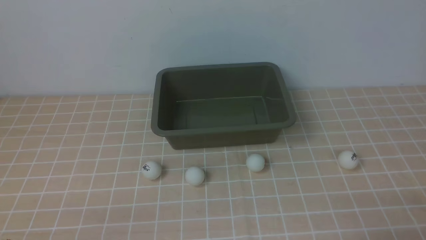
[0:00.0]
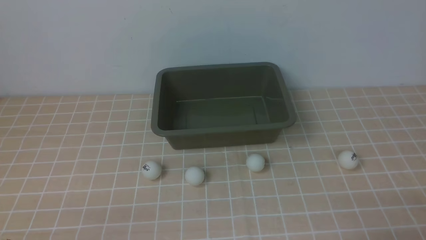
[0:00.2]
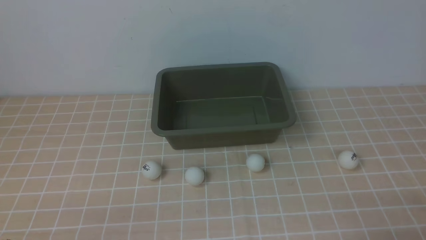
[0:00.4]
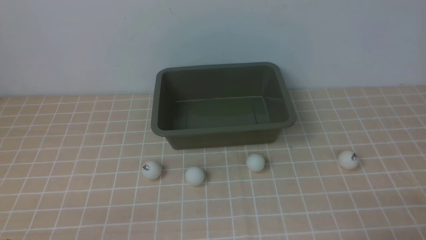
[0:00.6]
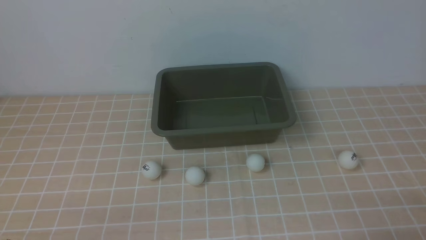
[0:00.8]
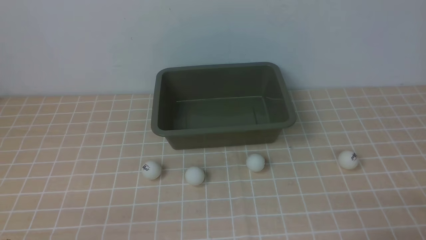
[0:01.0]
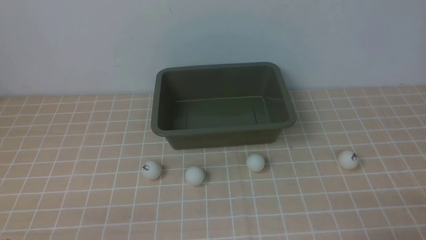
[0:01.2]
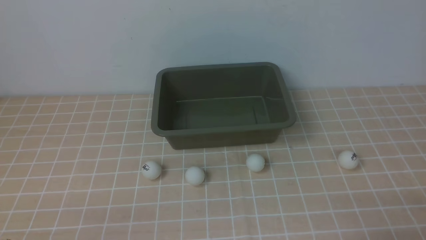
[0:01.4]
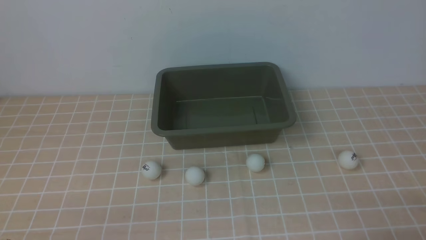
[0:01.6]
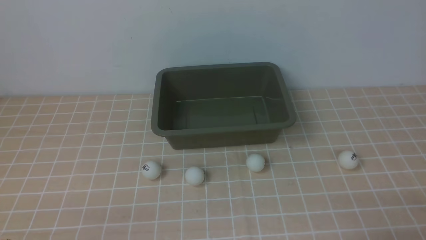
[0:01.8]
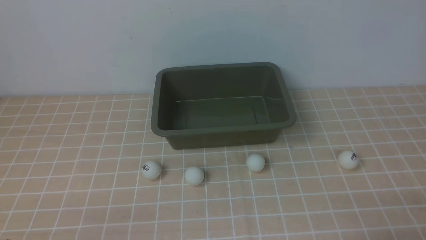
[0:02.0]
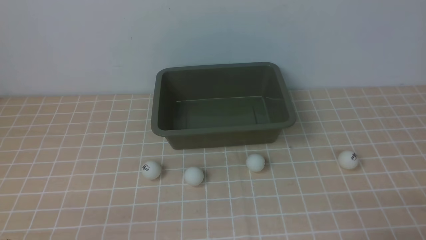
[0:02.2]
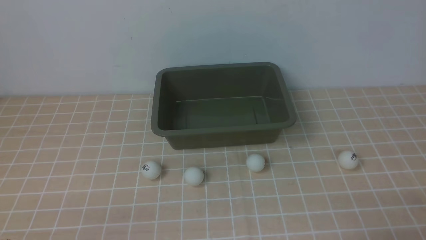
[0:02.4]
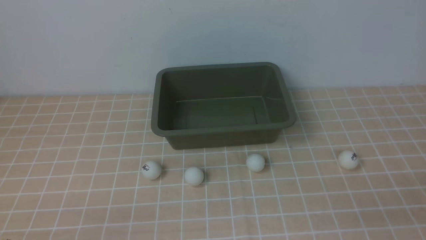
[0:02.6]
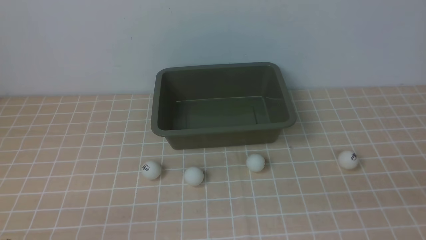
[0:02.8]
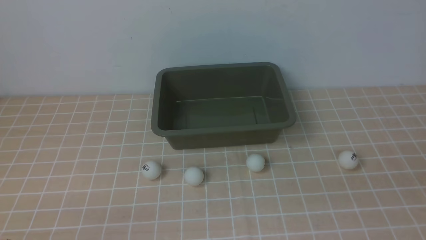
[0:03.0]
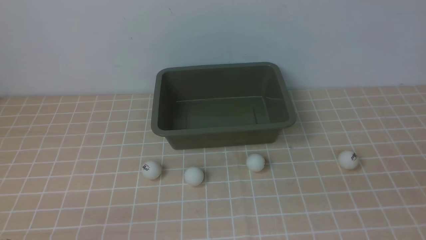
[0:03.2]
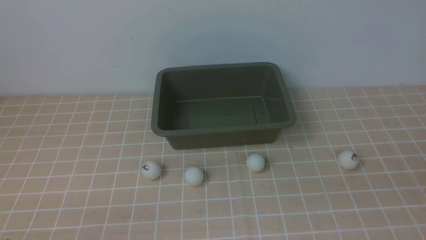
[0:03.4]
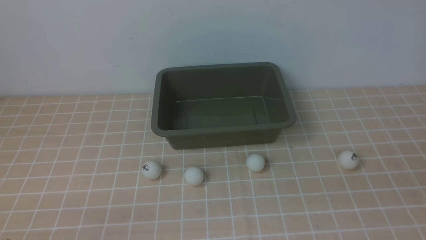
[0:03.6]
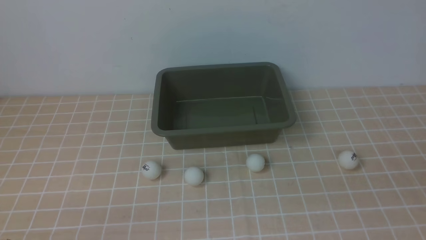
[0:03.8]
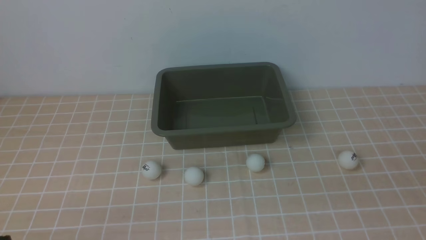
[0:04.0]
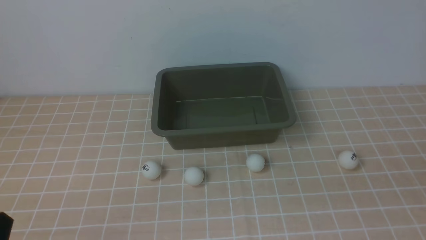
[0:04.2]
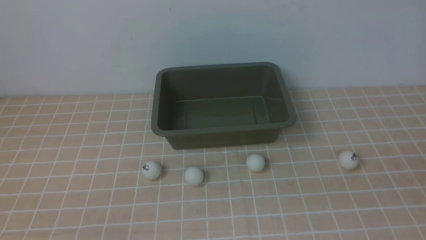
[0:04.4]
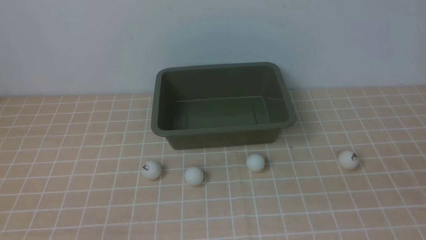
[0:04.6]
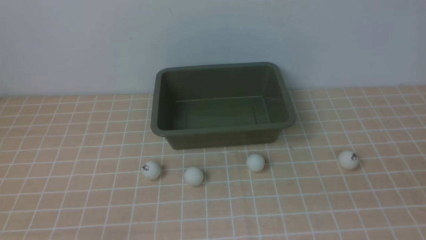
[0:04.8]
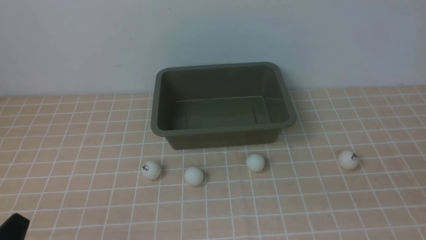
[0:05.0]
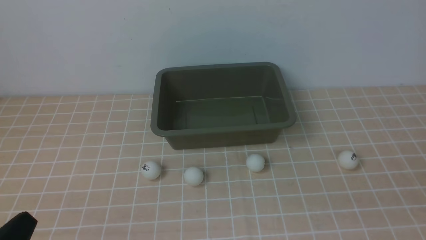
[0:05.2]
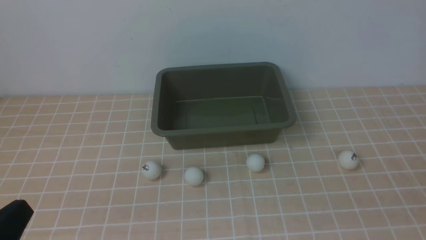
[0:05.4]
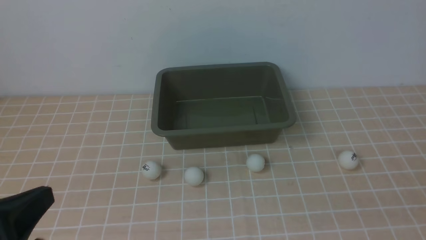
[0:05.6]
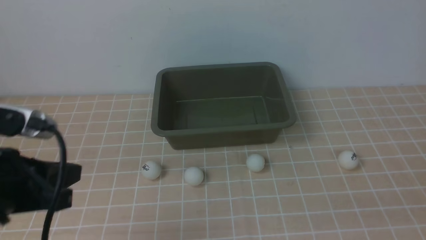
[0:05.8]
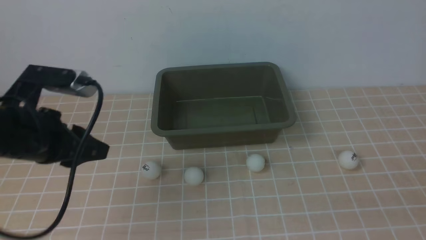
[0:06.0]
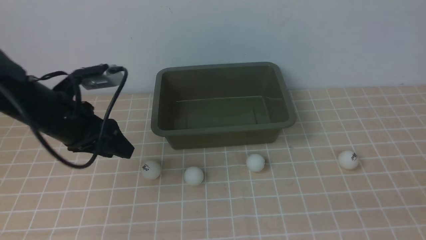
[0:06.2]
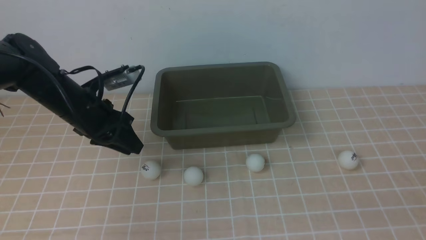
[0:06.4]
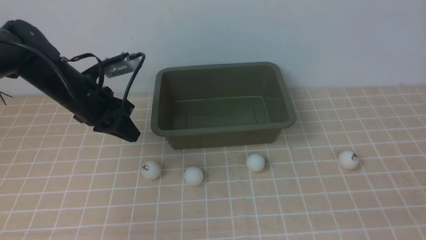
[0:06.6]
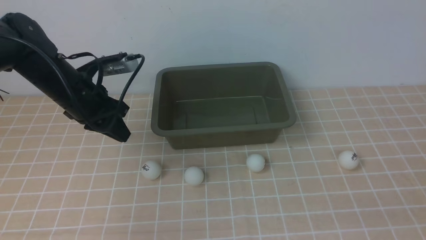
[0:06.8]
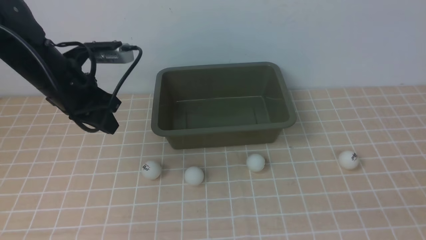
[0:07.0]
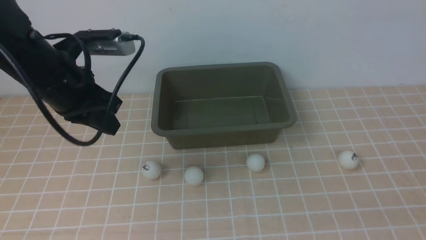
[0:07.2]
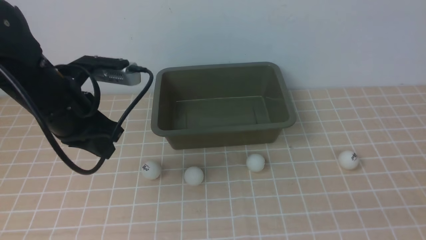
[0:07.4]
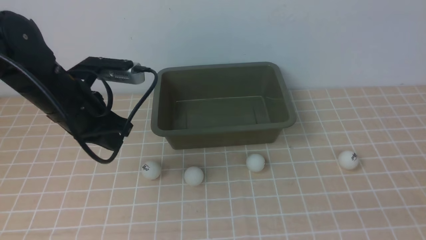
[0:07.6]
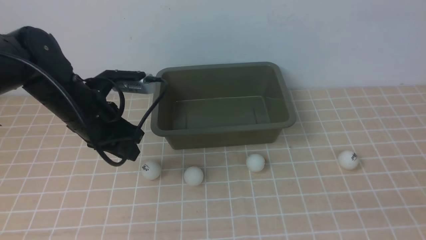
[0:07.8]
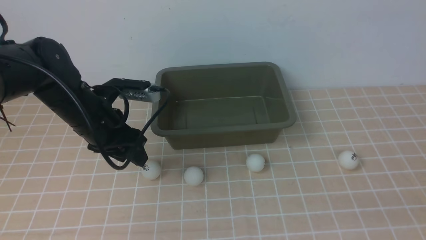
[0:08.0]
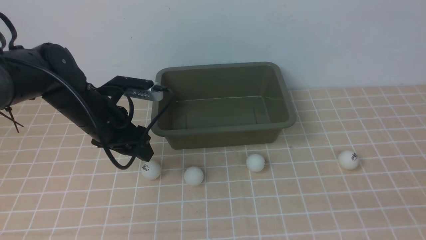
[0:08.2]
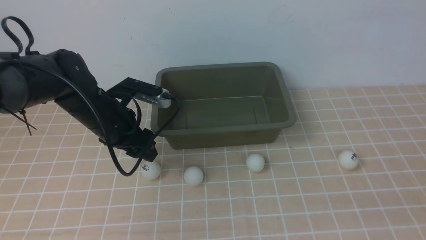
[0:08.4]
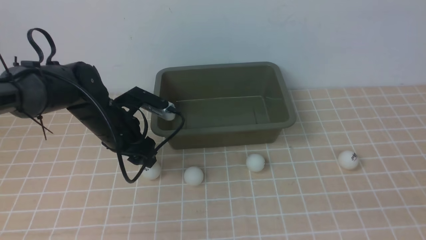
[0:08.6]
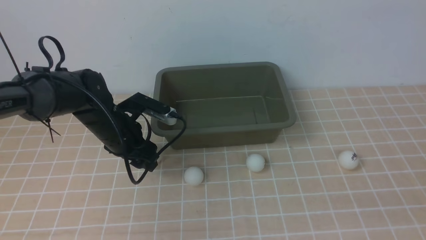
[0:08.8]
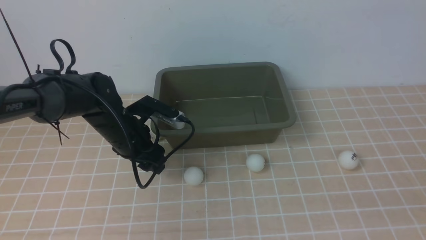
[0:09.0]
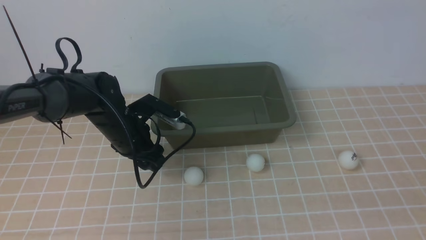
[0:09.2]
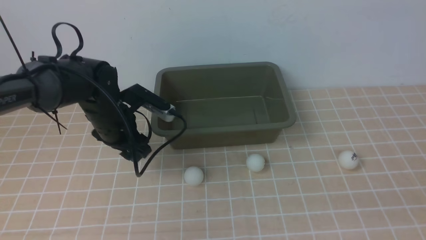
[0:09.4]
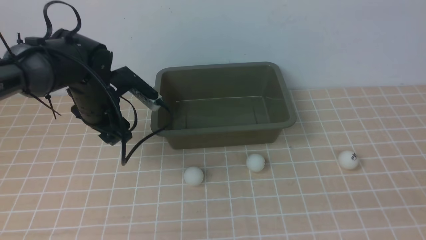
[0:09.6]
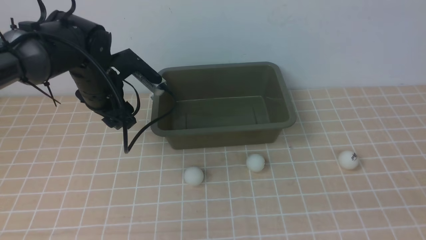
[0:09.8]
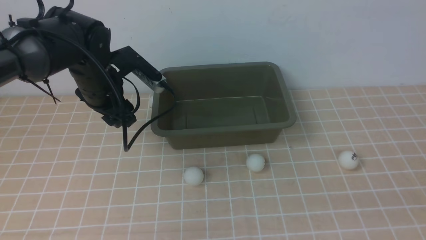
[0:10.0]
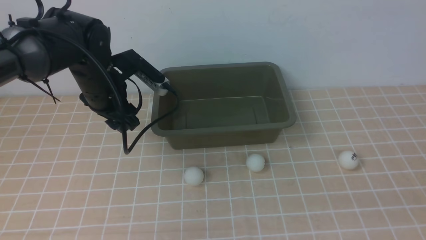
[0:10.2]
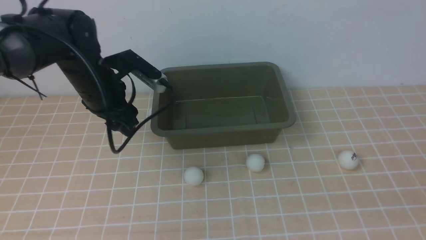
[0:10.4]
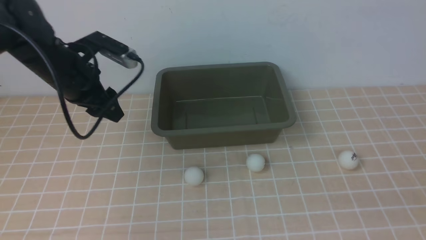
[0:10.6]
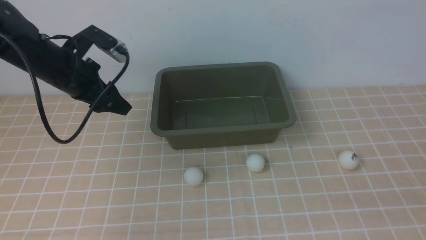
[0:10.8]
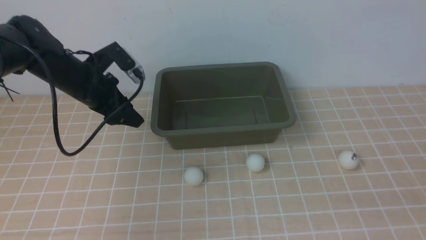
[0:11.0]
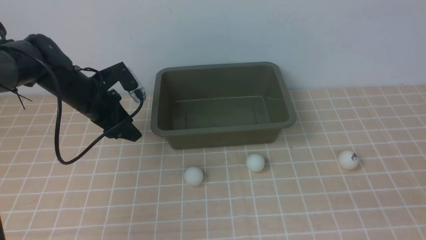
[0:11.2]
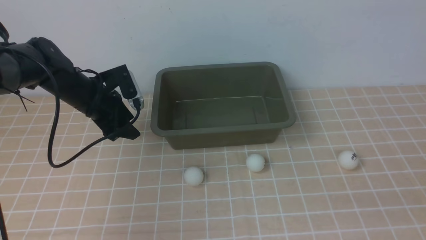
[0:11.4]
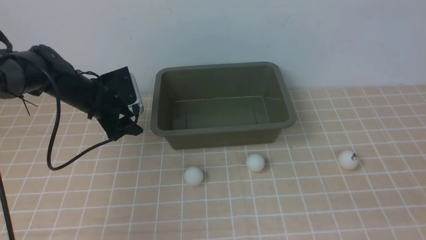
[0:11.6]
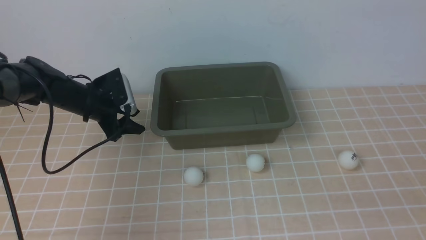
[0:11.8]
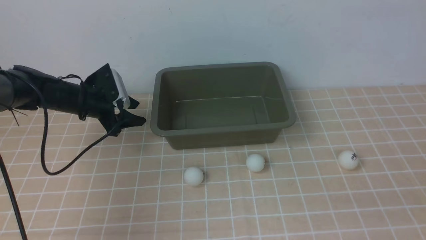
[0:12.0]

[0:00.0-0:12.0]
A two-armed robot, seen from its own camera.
0:00.0 to 0:01.6: Neither gripper changes place.
0:04.4 to 0:06.0: The left gripper shifts some 20 cm forward and upward, and opens.
0:06.0 to 0:07.6: The left gripper heads forward, covering some 5 cm, and closes up.
0:07.6 to 0:09.0: The left gripper moves downward and forward, about 10 cm, and opens.
0:09.0 to 0:10.4: The left gripper heads upward, covering about 10 cm.
0:10.4 to 0:12.0: The left gripper moves downward, forward and to the left, approximately 15 cm.

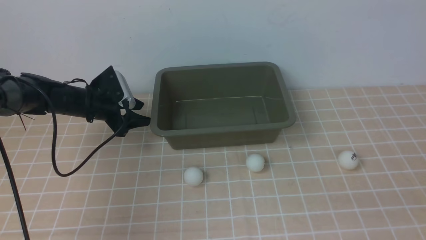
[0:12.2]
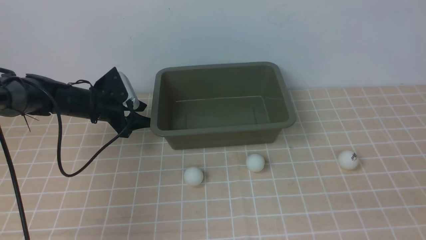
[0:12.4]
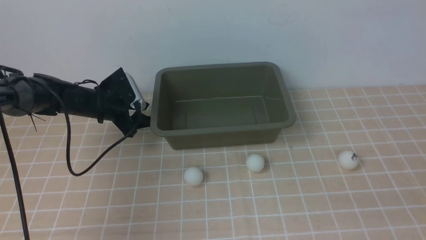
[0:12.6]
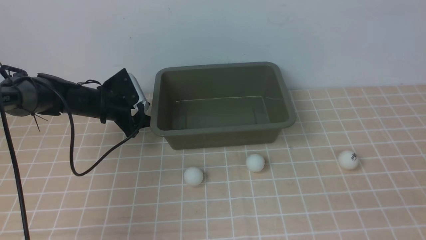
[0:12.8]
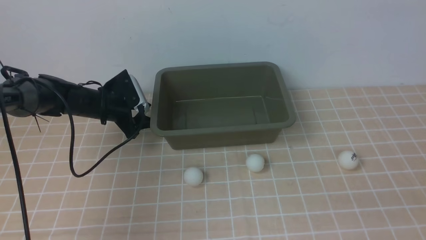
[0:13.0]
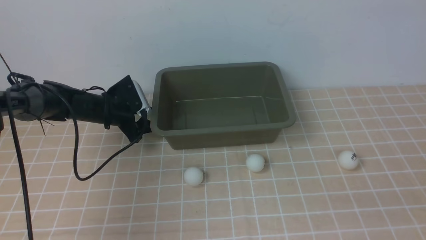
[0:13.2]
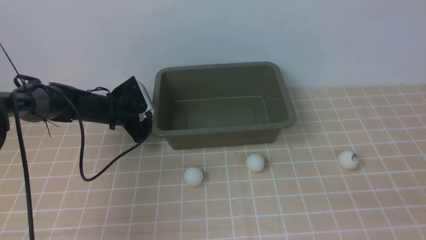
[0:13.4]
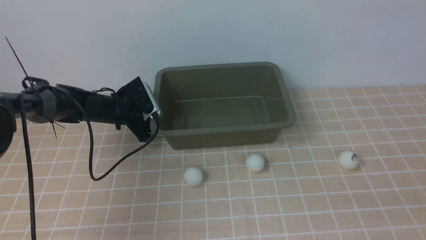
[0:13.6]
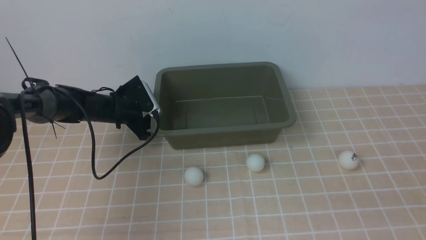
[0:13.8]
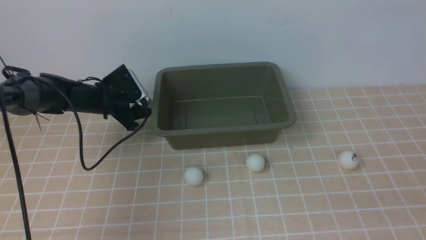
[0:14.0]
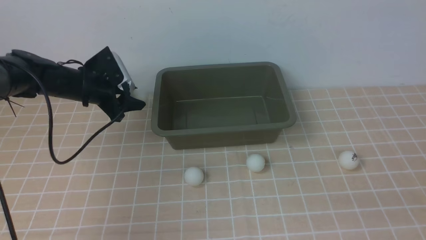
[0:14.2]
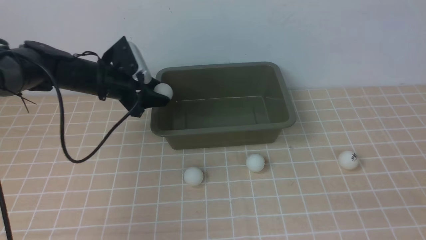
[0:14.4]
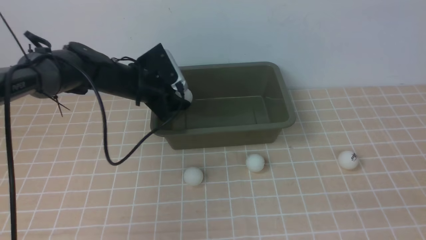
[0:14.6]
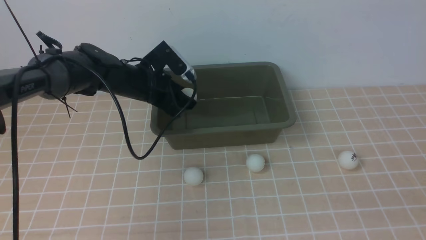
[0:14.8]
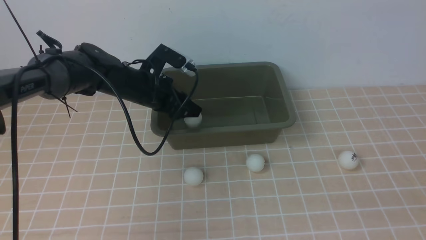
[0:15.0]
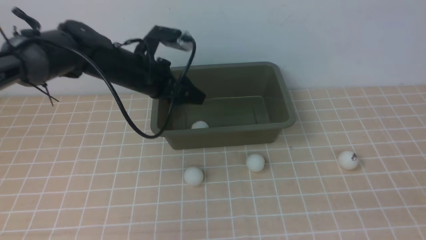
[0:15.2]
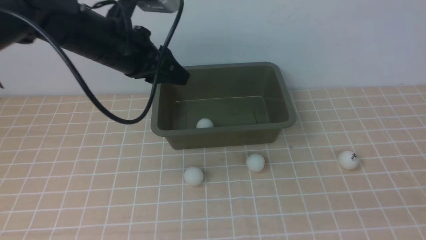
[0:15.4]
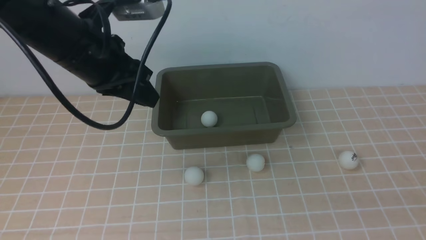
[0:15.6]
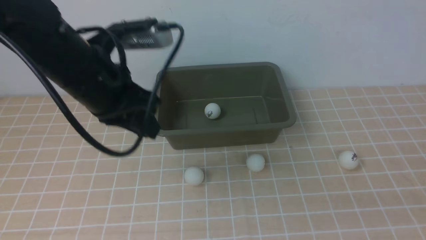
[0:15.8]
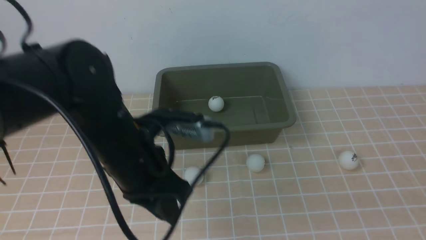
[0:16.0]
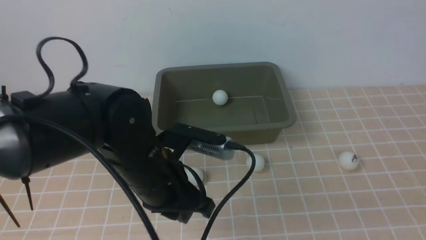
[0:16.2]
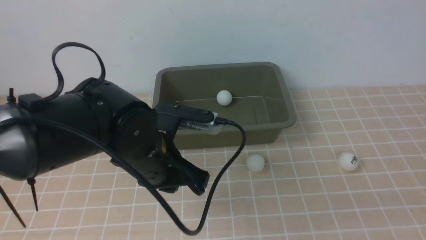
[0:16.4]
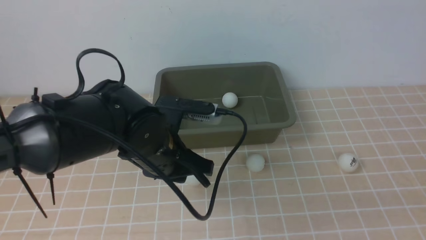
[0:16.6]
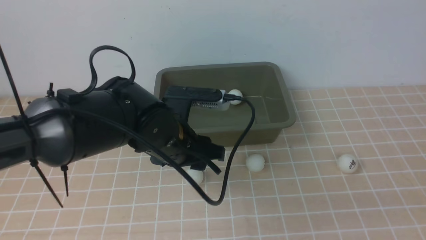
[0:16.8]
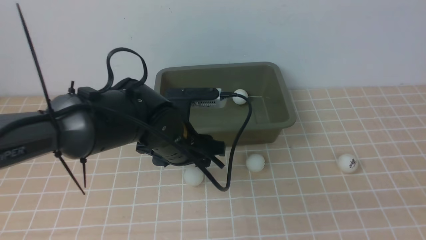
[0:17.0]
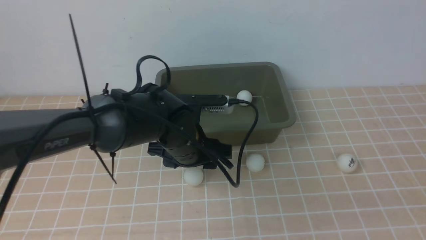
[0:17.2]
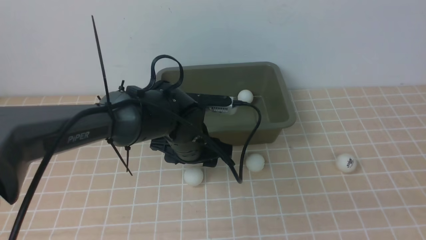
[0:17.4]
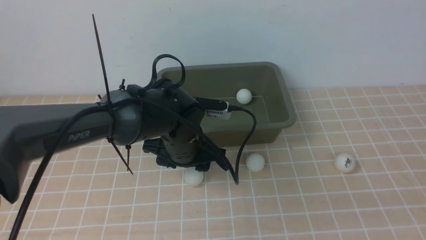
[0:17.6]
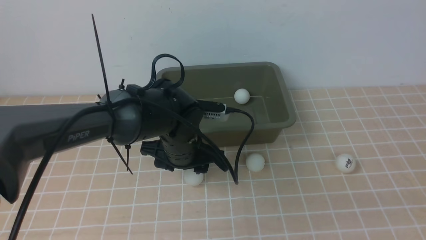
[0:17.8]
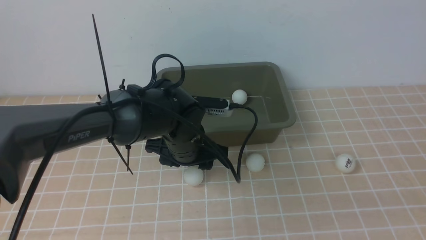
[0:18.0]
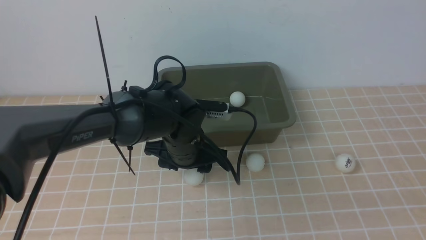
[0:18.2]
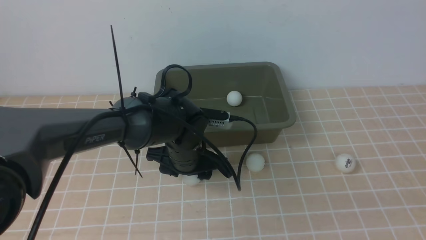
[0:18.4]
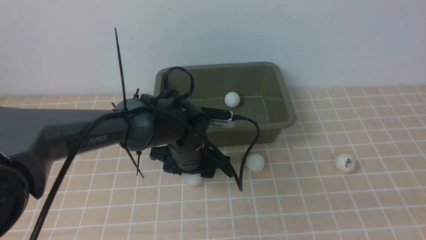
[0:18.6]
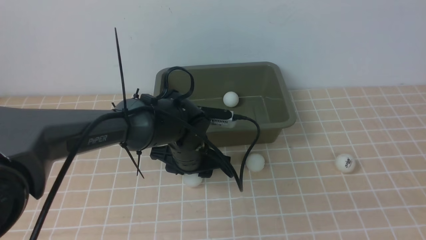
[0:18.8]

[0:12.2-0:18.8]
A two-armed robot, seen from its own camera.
Step, 0:14.4 to 0:15.0: use the left arm to put the table tennis ball into the box.
0:12.2 to 0:13.8: The grippers make only small movements.
0:13.8 to 0:15.4: The left gripper moves upward and backward, about 25 cm.
0:15.4 to 0:17.2: The left gripper goes some 15 cm downward and to the right, and opens up.
0:17.2 to 0:18.8: The grippers make only small movements.
